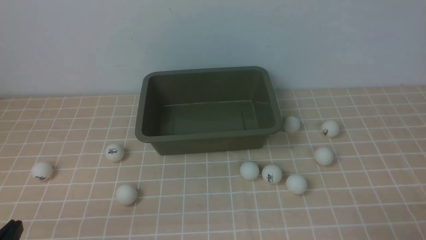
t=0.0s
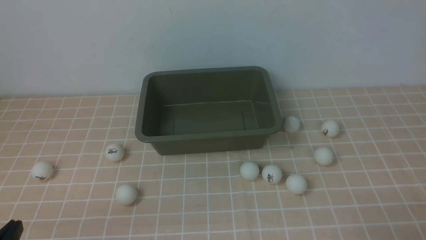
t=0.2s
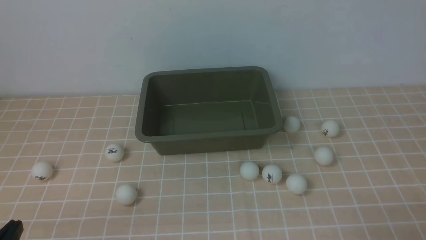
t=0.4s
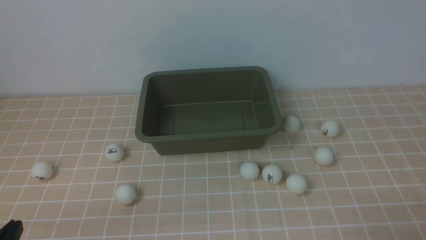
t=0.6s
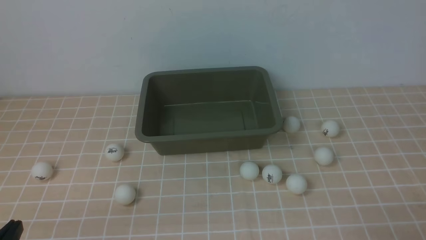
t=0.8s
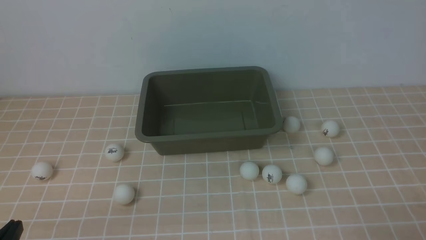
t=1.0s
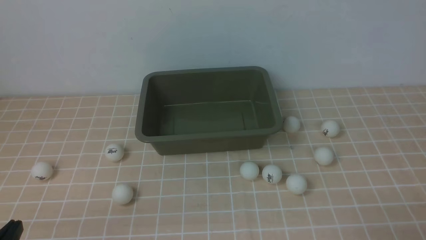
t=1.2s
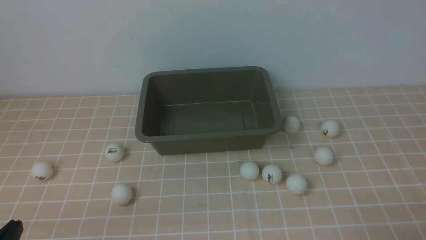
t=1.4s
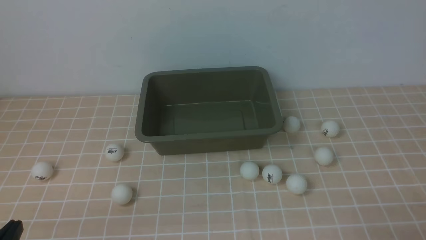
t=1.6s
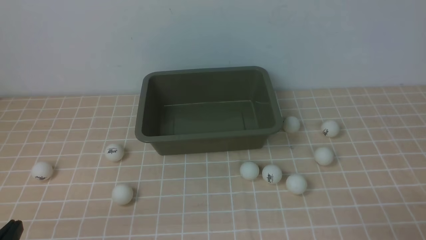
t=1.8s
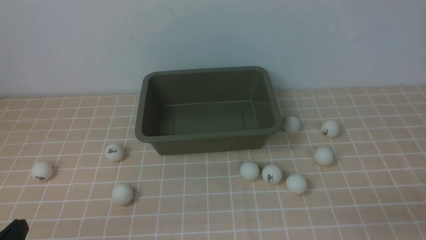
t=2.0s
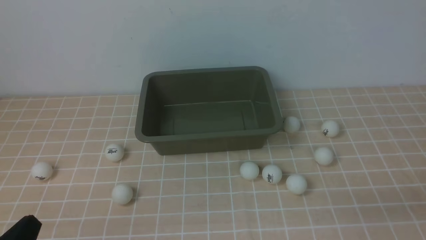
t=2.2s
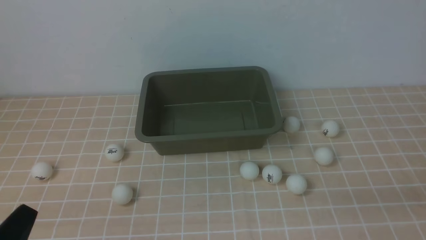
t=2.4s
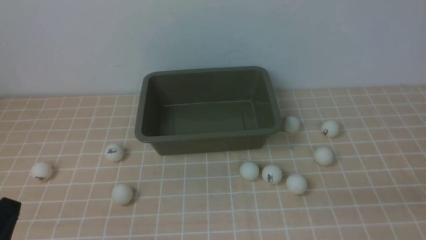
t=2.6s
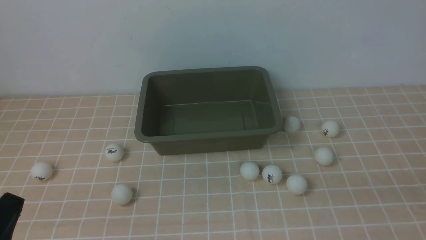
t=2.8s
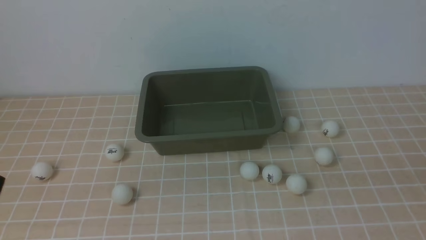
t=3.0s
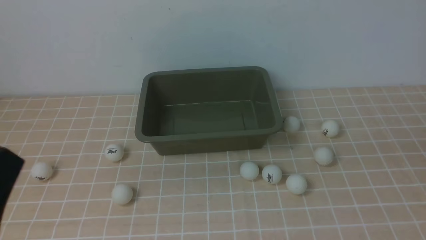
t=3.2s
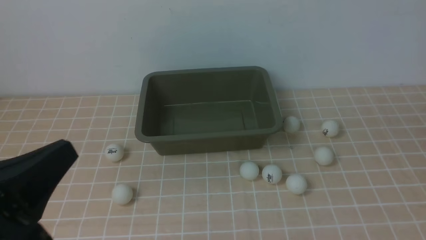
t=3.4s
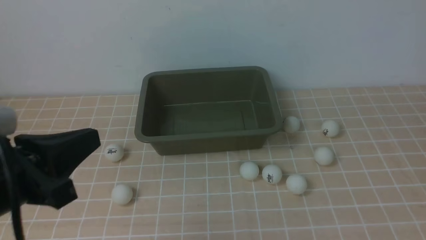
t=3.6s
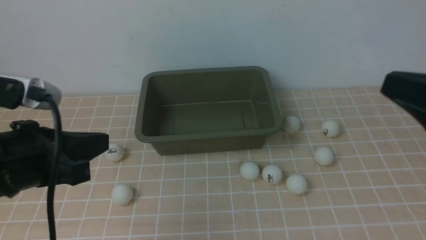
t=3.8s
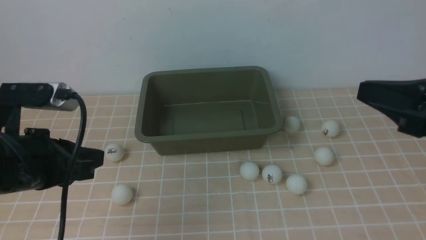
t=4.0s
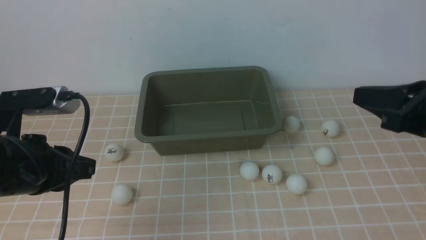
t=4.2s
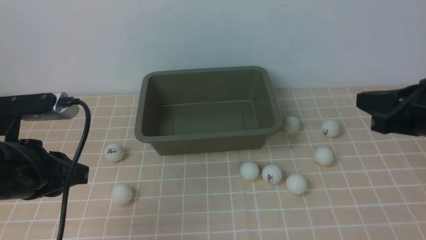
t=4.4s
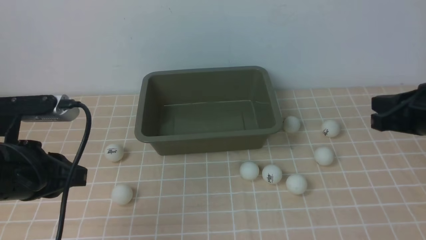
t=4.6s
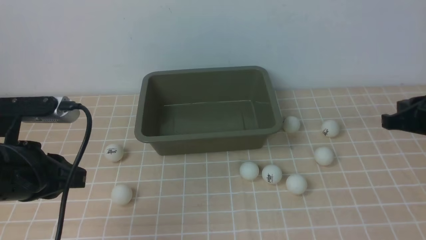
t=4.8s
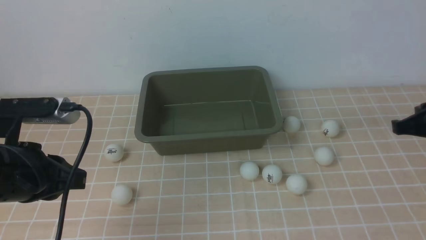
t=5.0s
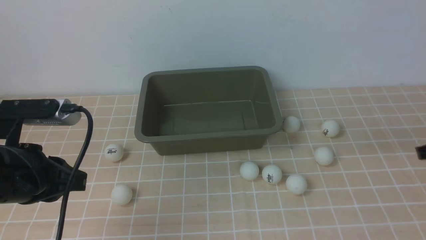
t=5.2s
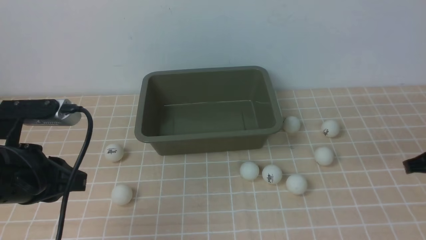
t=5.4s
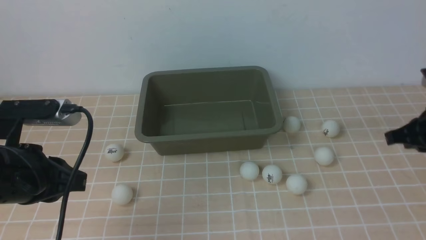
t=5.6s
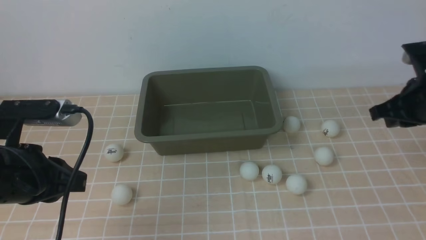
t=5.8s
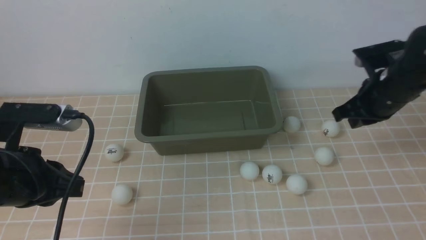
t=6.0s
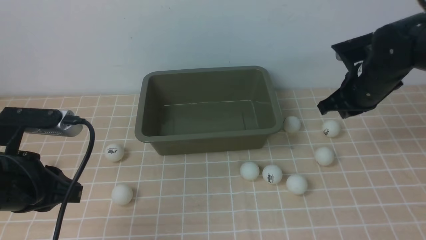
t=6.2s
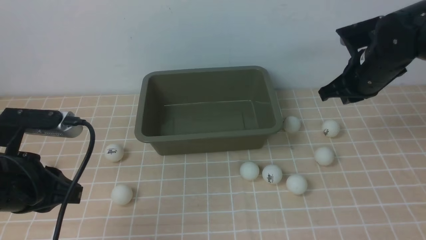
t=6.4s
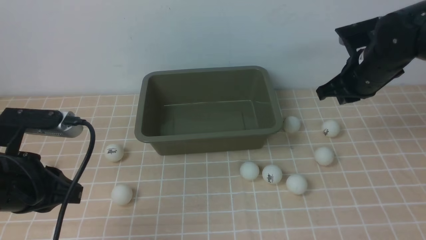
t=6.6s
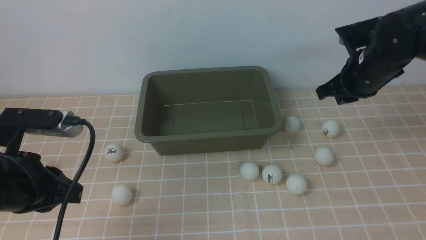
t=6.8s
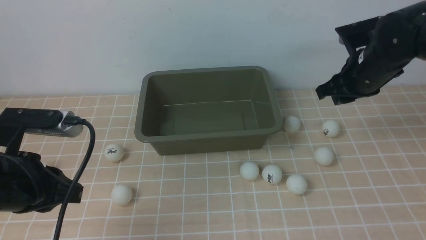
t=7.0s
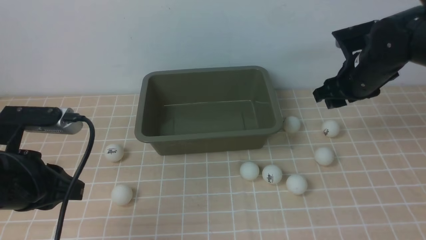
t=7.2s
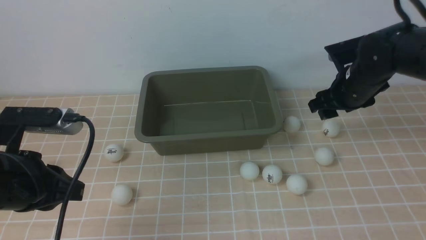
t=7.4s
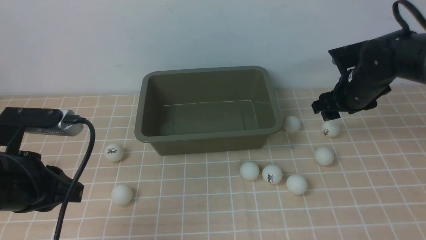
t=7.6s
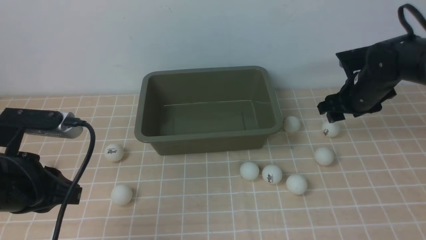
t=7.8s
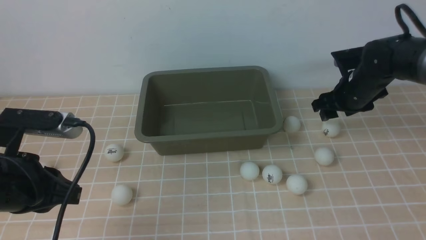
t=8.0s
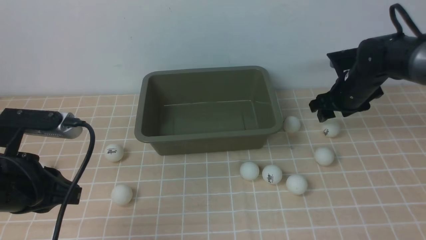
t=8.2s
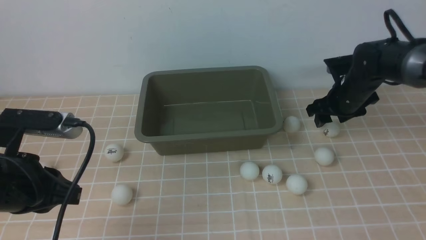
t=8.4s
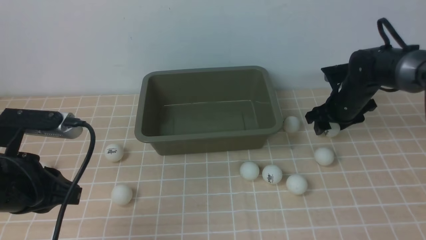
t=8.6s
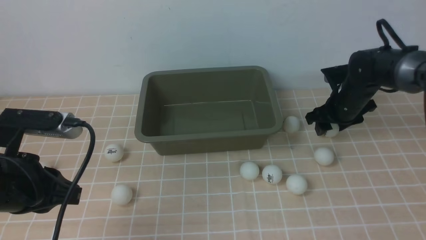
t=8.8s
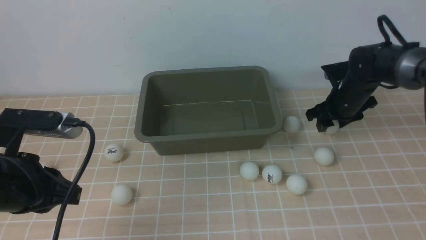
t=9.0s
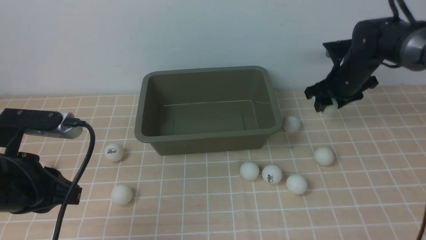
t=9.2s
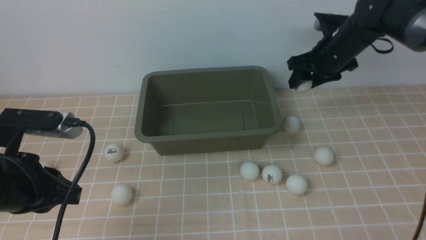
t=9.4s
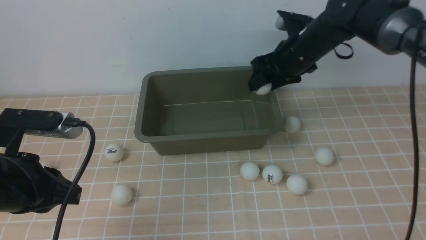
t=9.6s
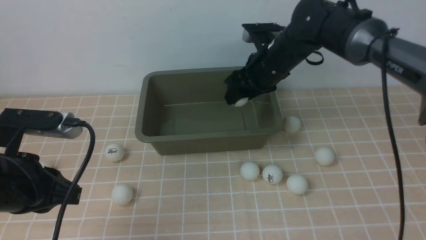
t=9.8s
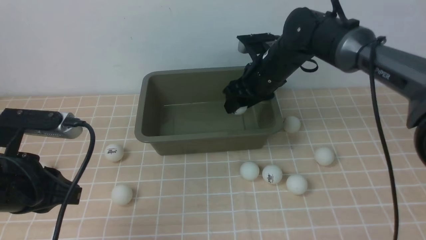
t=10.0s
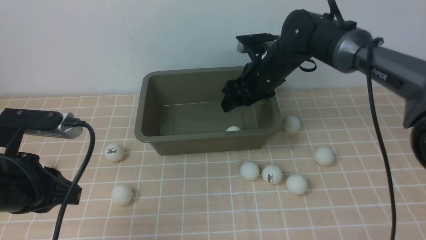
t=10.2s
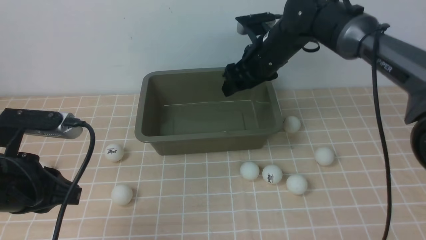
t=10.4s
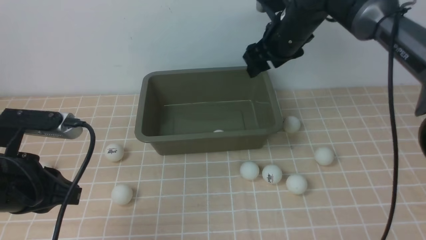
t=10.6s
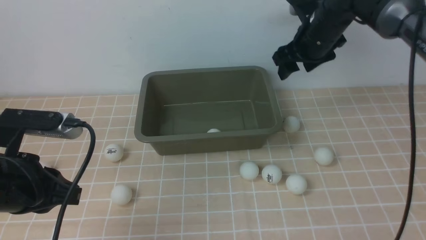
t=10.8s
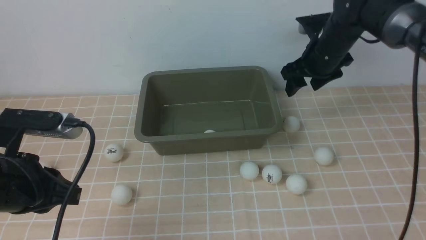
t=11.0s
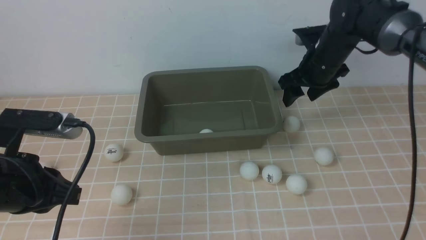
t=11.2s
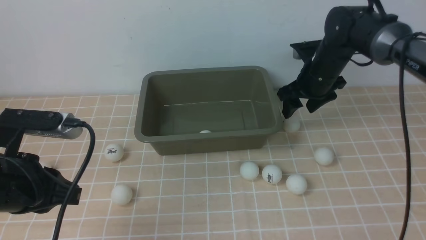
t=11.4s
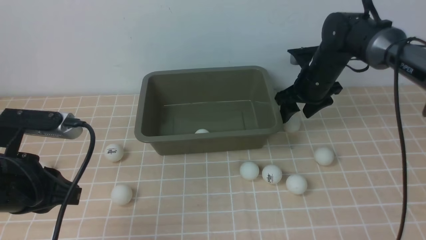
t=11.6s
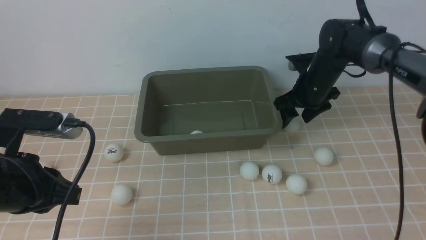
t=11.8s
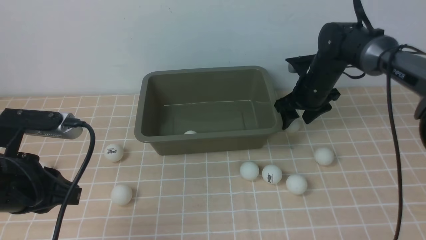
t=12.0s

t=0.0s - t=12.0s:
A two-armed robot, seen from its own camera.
Step, t=0.0s - t=9.4s: use the right arm to clamp the table tennis ball closest to it.
Step, t=9.6s - t=10.2s: use the right arm to put the table tennis ball into the box.
t=3.0s - t=4.4s: Both grippers travel together forward, approximately 15 cm.
t=4.4s - t=6.0s: The right gripper travels forward and downward by some 10 cm.
t=6.0s - t=7.6s: The right gripper travels forward by about 5 cm, and opens up.
t=7.6s - t=9.0s: The right gripper goes roughly 5 cm downward.
t=9.0s - t=10.4s: The right gripper is displaced to the left and upward by some 20 cm.
t=10.4s - t=12.0s: The right gripper shifts about 10 cm to the right and downward.

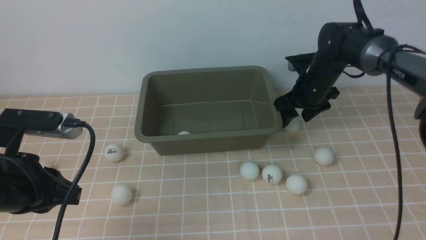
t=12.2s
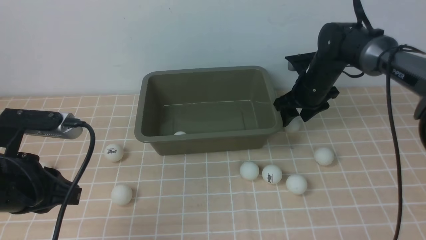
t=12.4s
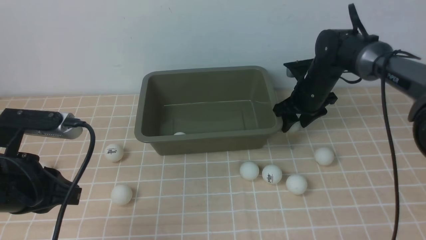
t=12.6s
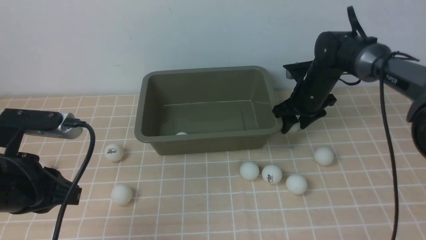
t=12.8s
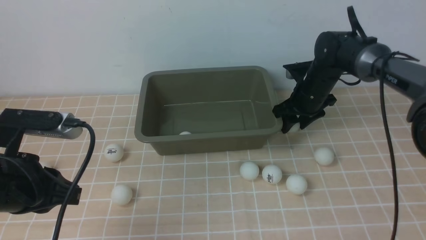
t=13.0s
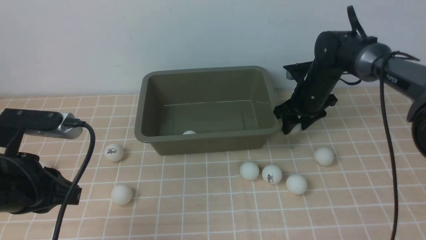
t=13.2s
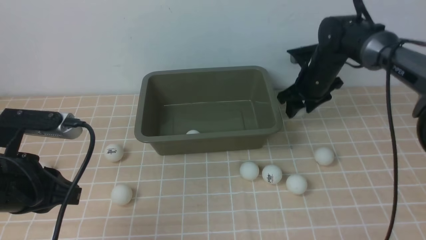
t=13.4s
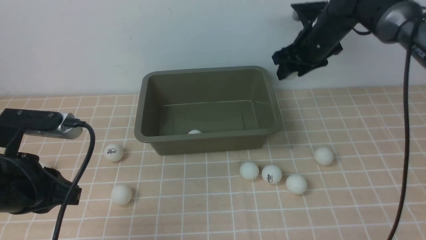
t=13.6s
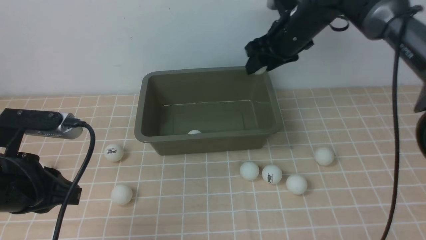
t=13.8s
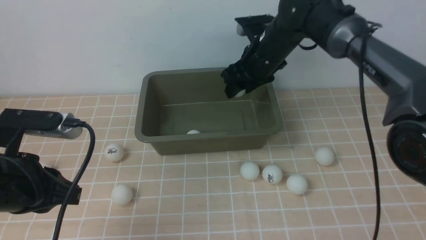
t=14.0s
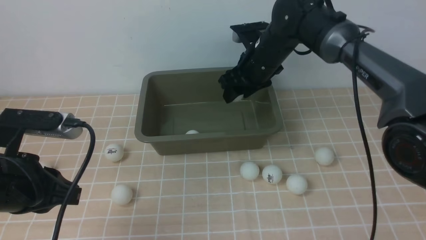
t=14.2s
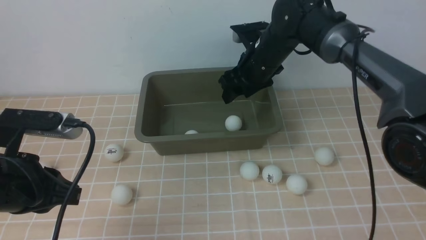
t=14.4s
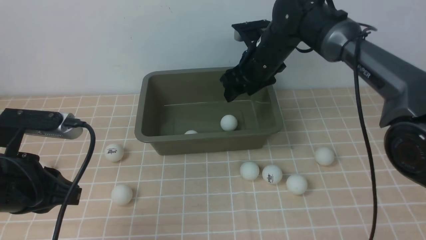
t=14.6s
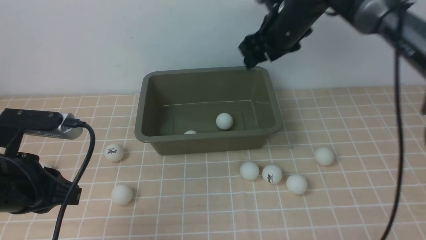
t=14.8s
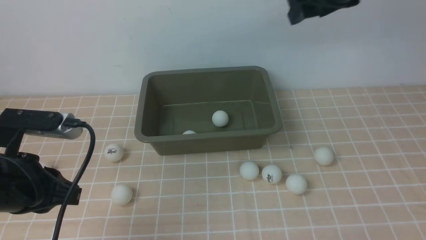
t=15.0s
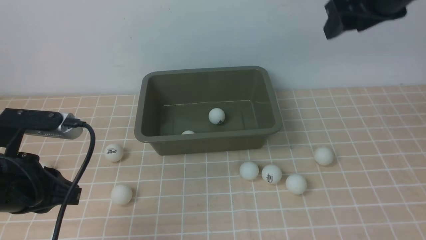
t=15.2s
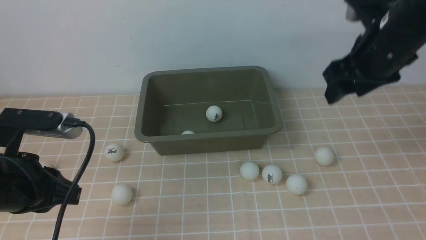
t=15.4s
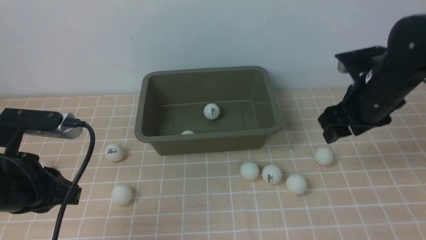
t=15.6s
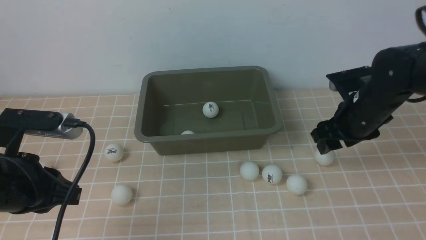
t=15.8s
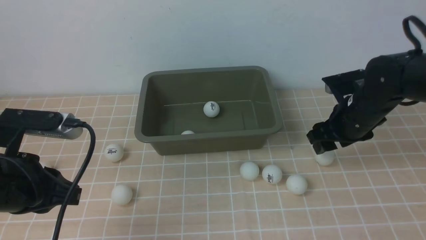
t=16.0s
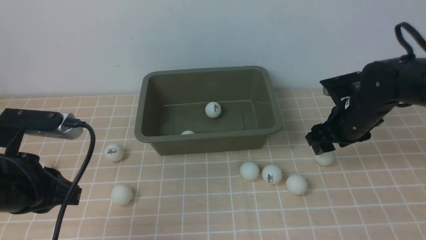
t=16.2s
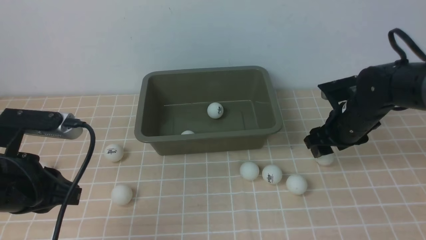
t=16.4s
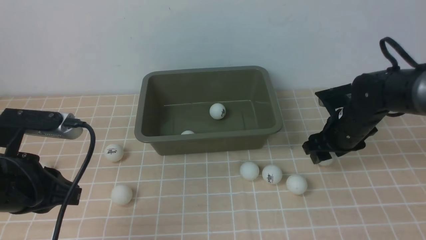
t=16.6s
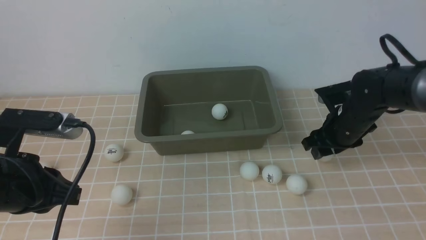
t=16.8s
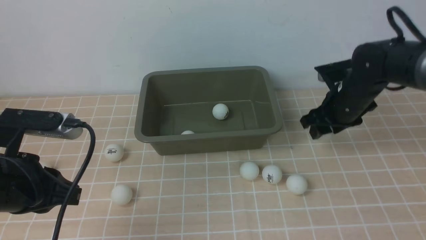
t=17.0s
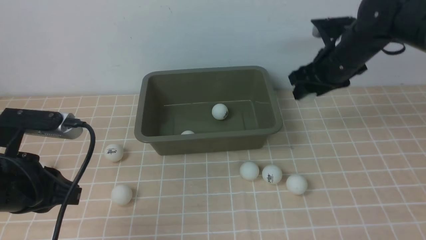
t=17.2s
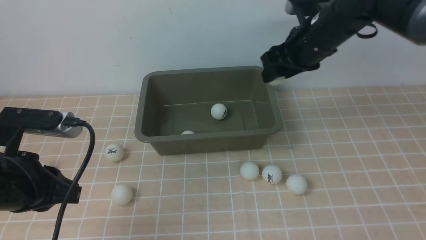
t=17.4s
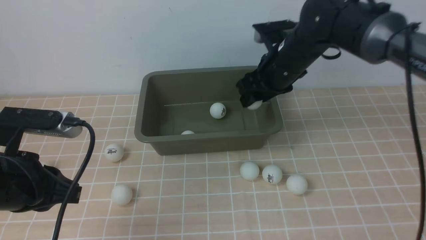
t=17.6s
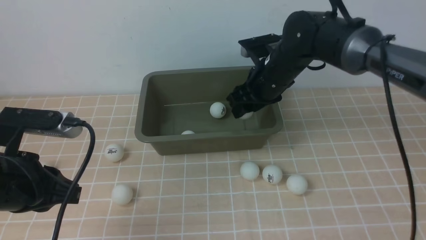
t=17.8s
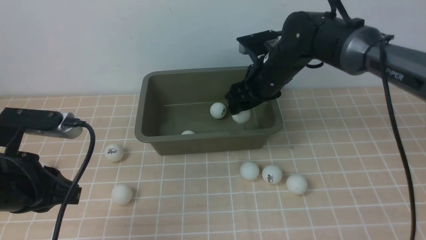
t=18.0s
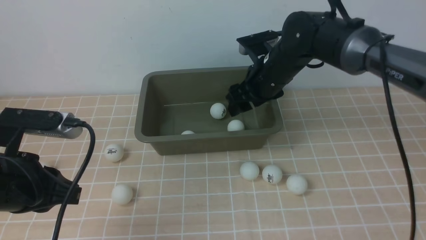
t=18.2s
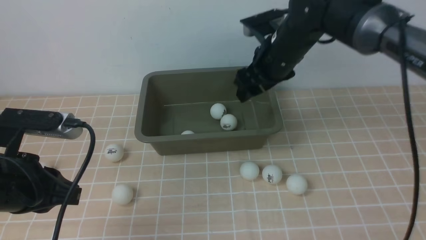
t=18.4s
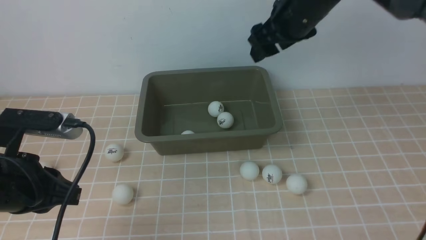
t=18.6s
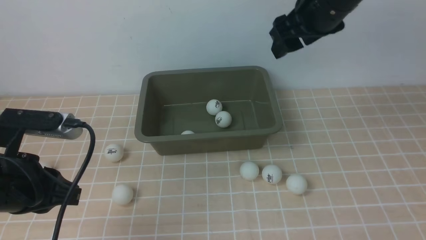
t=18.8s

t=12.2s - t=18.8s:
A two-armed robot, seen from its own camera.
Step, t=13.4s - t=14.6s: use the right arm to put the table tennis ball into the box.
Step, t=14.8s - t=17.2s: use the right arm to clamp the table tennis ball closest to it.
Step, t=17.4s - t=18.2s: use the right arm to put the table tennis ball into the box.
t=12.2s - t=13.8s: The right gripper is displaced upward by about 10 cm.
t=13.8s - t=15.4s: The right gripper heads backward, upward and to the right, covering approximately 15 cm.
t=15.4s - t=17.2s: The right gripper is displaced downward by some 10 cm.
t=17.2s - t=18.8s: The right gripper travels upward and to the left by approximately 15 cm.
